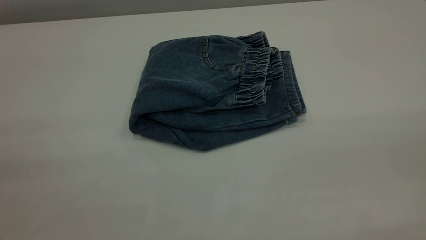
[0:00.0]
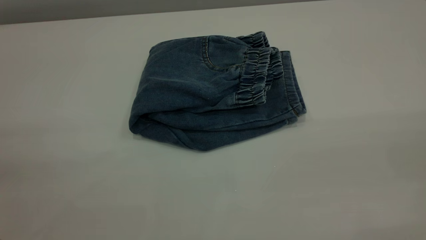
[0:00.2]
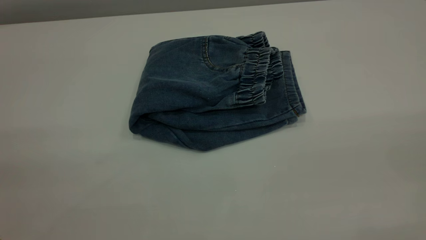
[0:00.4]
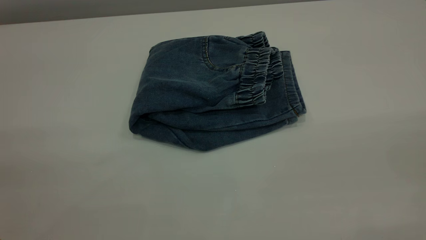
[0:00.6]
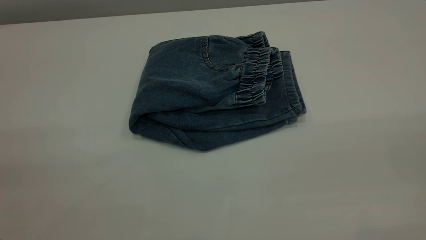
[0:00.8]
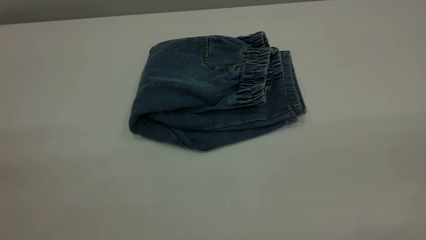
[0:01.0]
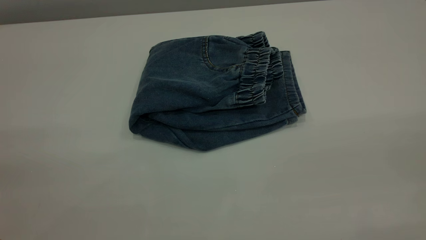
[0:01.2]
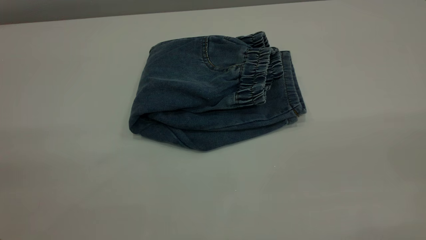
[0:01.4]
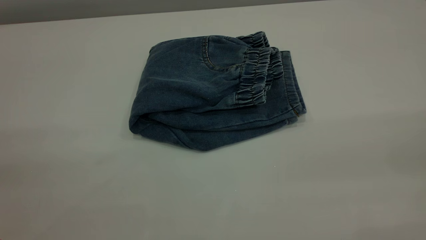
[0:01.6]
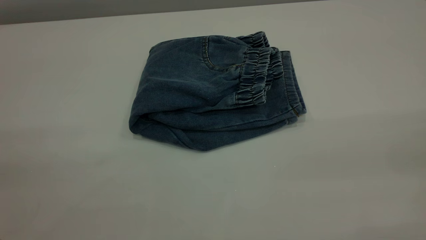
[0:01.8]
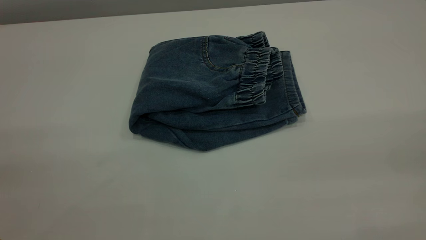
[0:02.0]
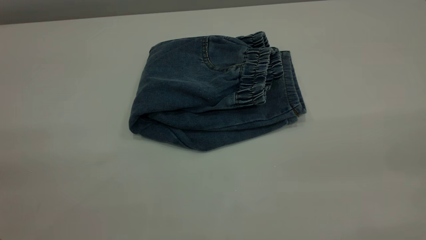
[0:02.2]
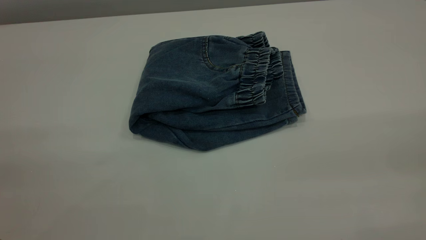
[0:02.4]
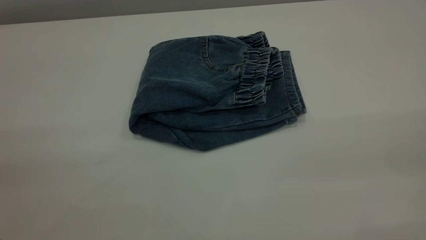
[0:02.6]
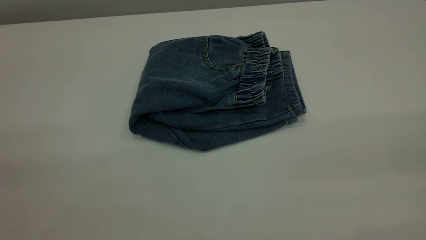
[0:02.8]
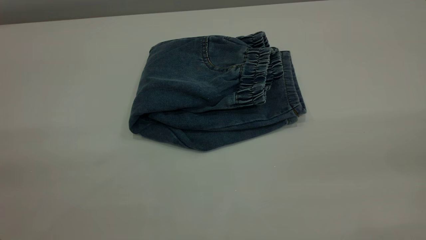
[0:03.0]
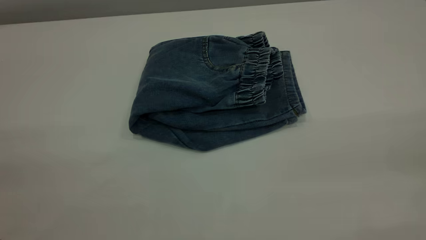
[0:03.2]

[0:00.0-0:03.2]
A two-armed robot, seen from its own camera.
0:01.6 to 0:03.2: Neither gripper changes place.

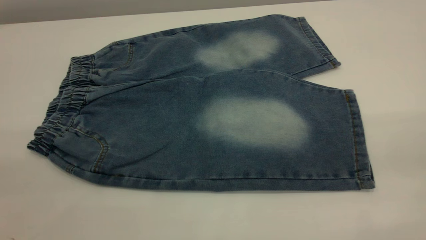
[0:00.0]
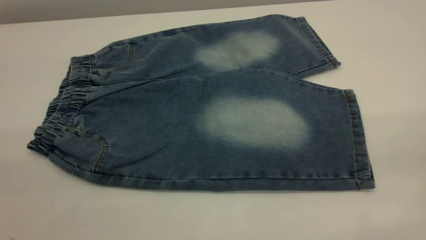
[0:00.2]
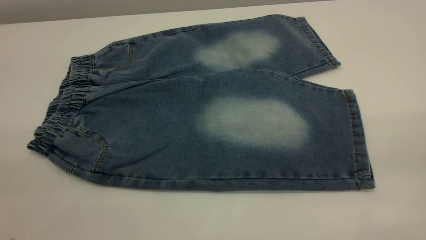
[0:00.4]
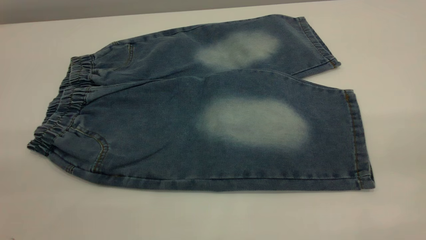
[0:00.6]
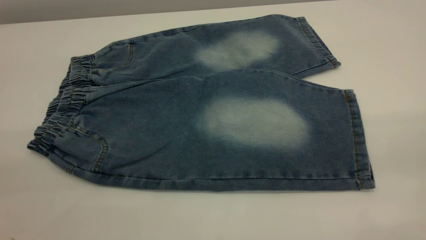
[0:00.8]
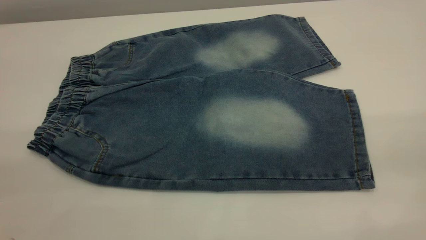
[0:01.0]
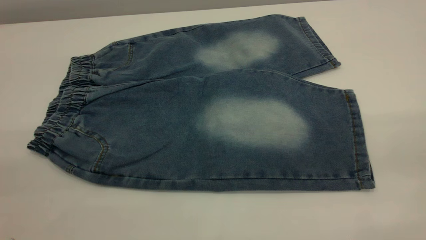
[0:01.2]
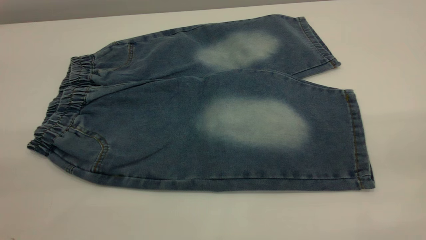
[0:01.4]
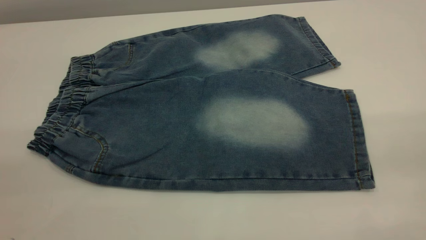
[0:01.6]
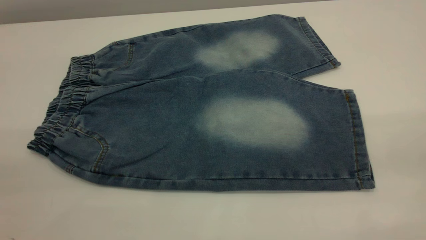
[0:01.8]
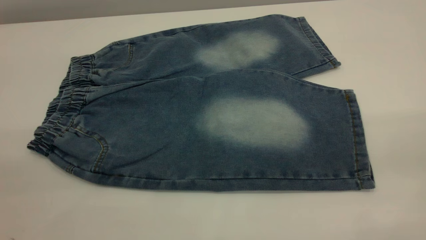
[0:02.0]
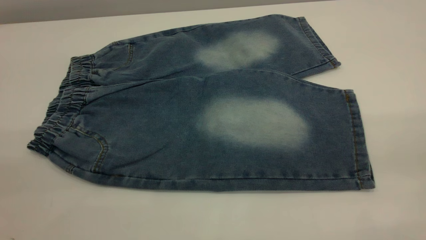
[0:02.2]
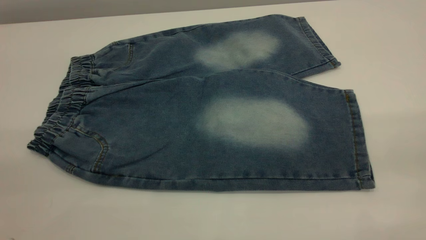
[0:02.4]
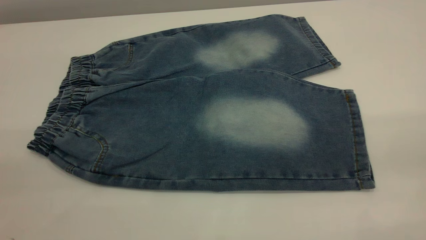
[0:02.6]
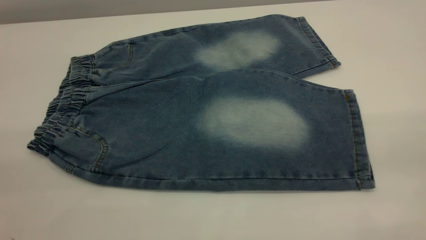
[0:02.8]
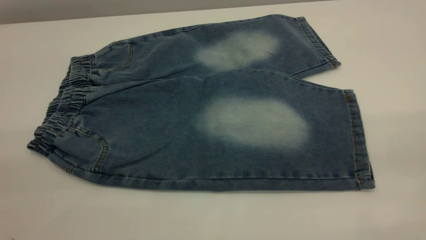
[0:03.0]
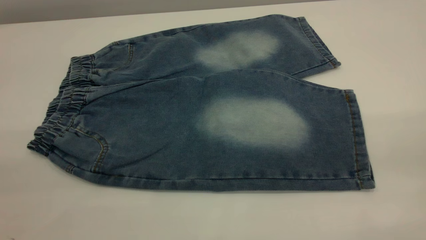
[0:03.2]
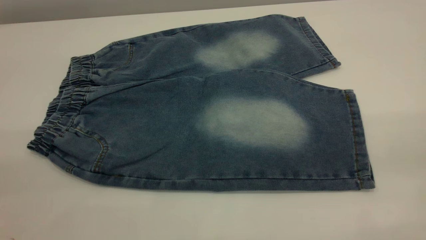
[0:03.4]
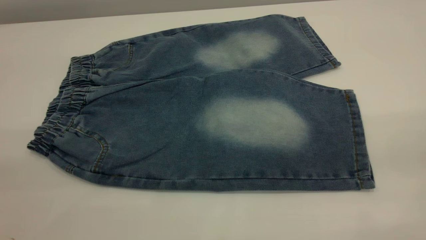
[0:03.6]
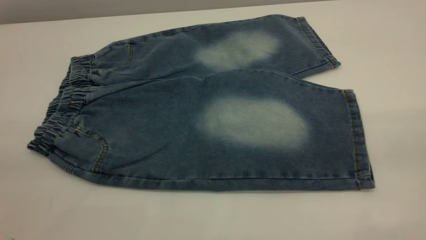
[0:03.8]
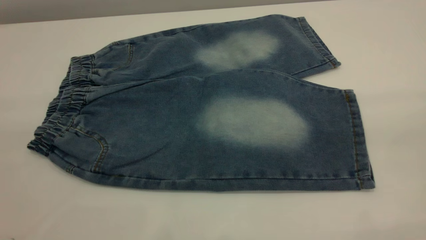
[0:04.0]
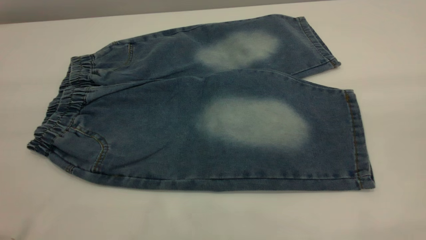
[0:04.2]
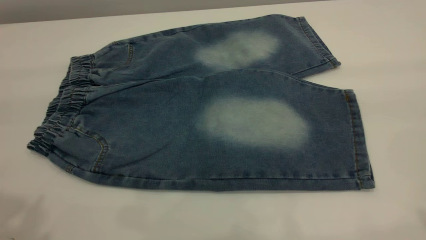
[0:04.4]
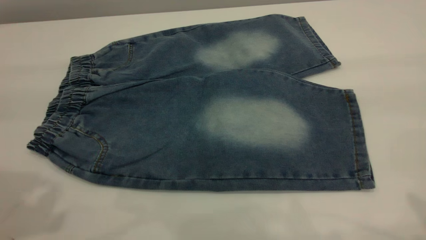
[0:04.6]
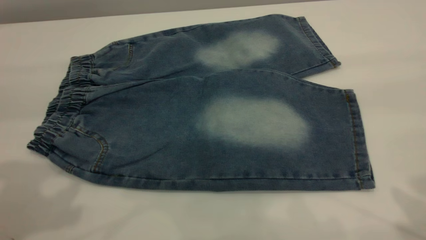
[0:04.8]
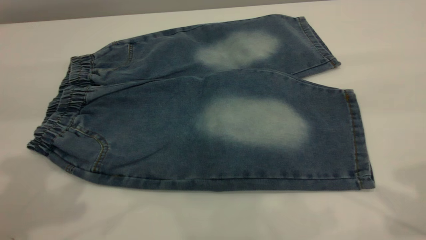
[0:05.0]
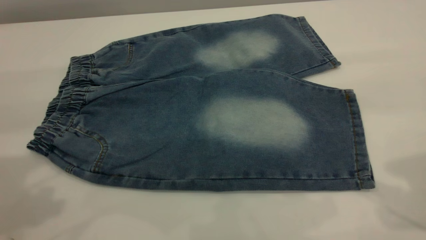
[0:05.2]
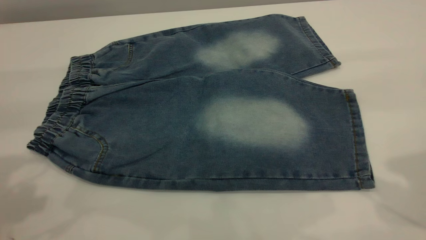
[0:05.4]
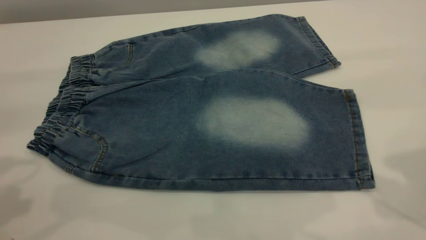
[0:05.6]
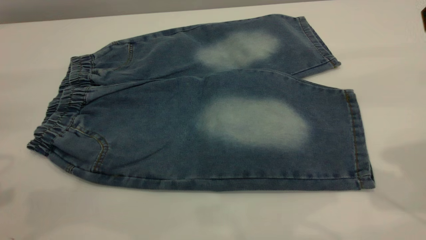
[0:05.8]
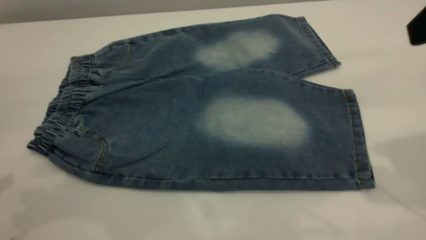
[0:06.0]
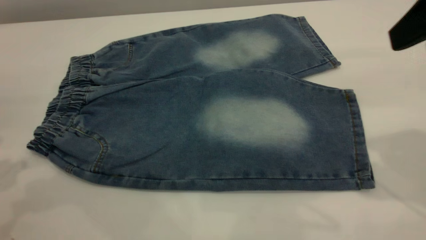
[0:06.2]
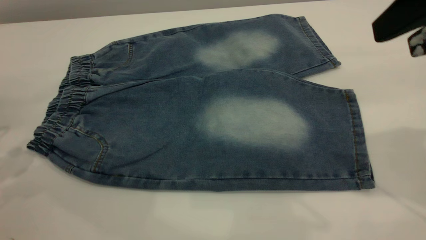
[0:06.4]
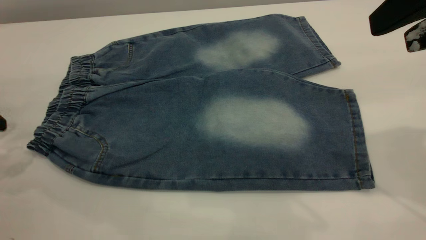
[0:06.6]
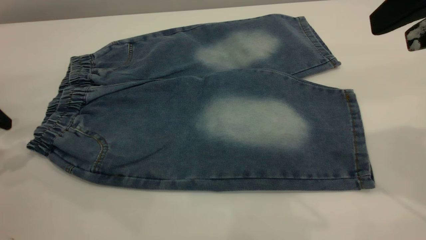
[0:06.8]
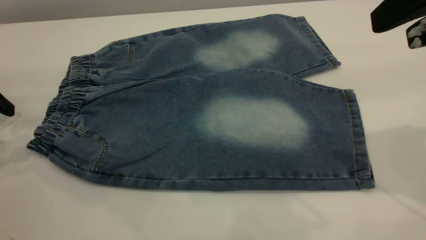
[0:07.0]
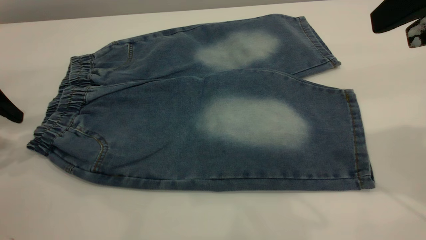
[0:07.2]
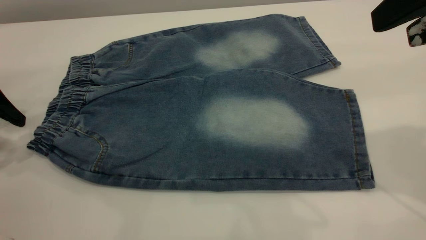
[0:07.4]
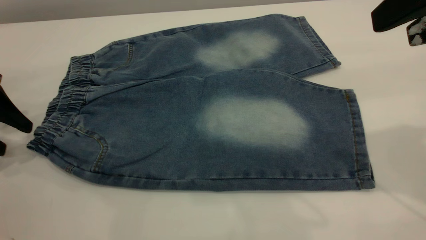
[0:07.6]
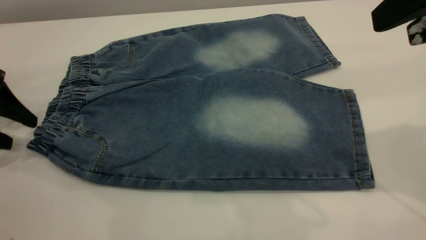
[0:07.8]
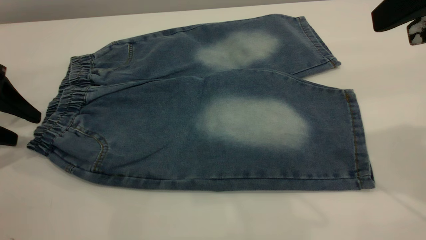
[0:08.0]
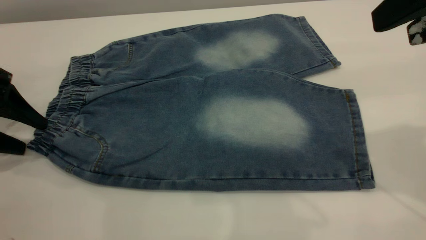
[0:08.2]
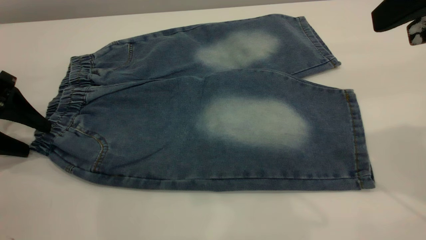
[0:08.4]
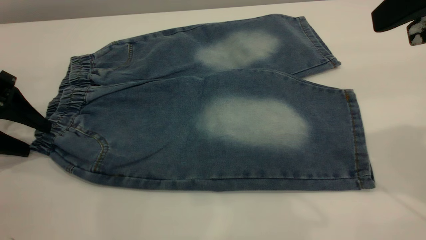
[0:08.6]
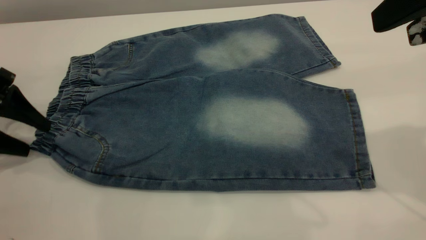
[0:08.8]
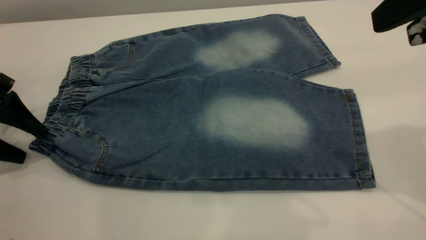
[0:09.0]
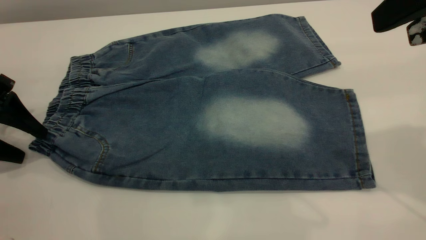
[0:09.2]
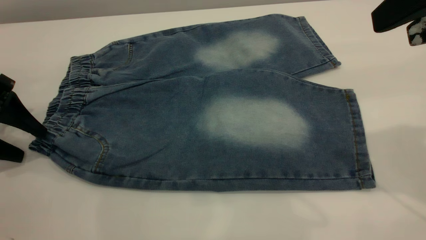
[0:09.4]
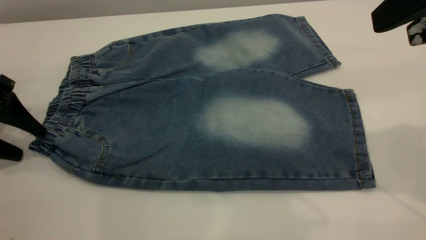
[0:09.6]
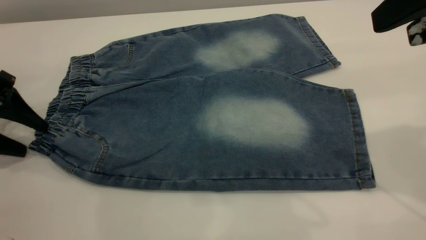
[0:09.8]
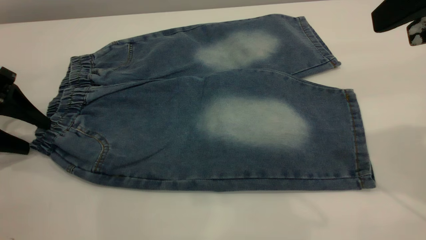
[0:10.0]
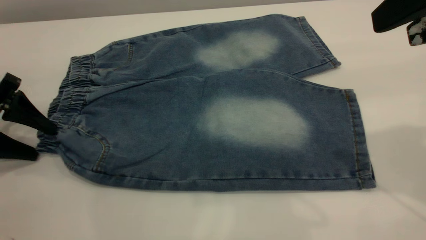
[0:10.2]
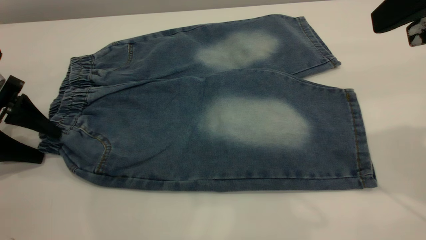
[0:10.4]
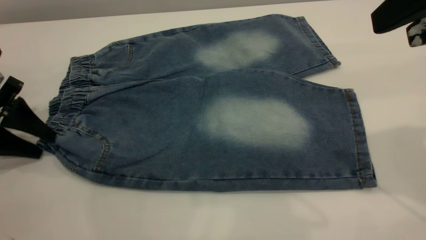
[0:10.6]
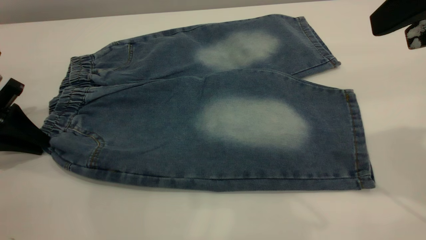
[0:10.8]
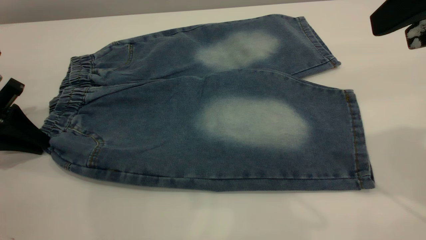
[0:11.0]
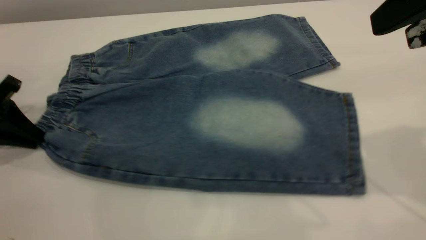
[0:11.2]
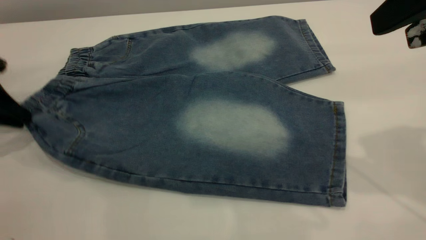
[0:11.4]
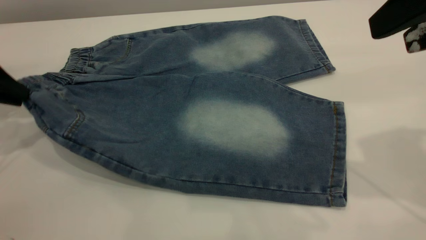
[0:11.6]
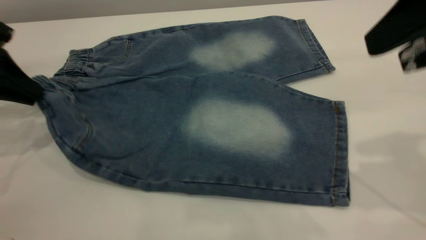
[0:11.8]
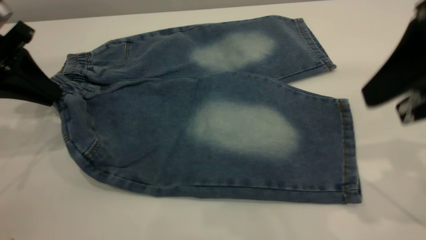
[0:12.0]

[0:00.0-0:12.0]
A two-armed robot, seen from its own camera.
0:00.0 to 0:03.0: Both grippers stay about where they are.
0:04.4 to 0:06.0: The right gripper is displaced forward and downward by approximately 15 cm.
0:06.0 to 0:07.6: The left gripper shifts roughly 15 cm downward and forward.
0:07.6 to 0:10.4: The grippers move only a little.
0:10.4 to 0:12.0: The left gripper travels upward by some 10 cm, and closes up.

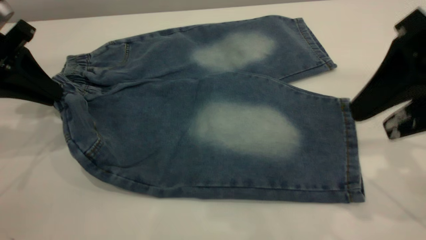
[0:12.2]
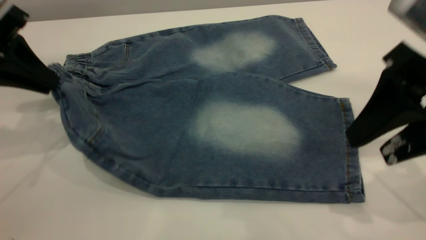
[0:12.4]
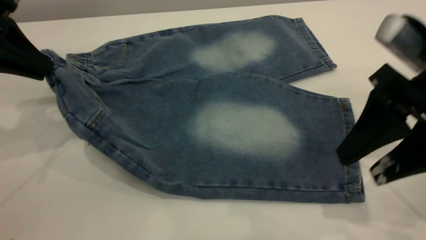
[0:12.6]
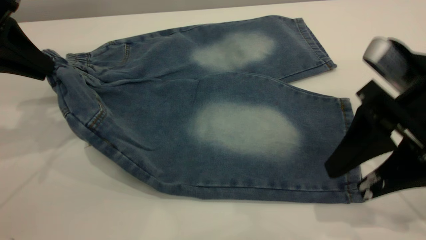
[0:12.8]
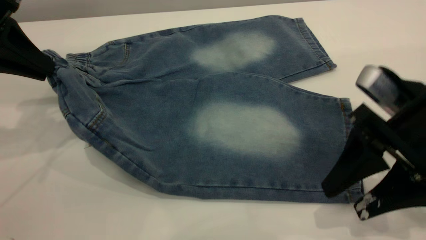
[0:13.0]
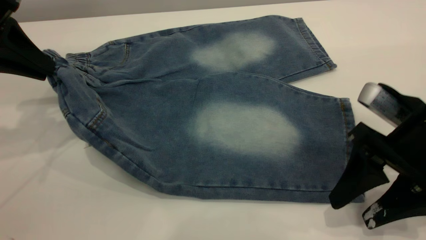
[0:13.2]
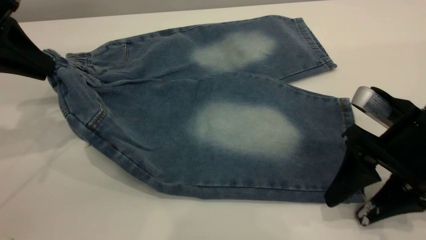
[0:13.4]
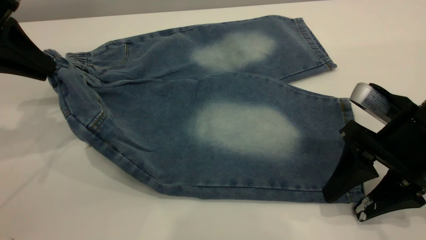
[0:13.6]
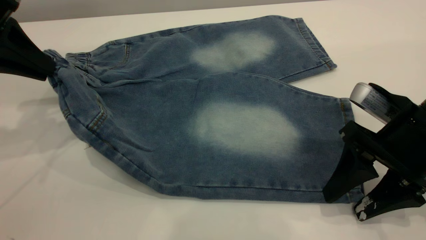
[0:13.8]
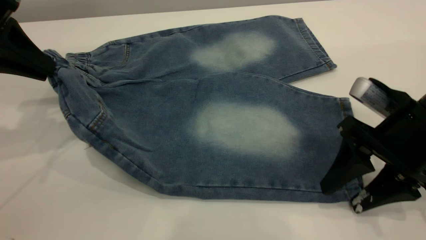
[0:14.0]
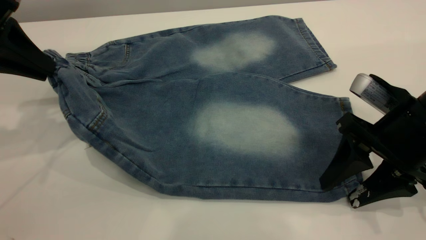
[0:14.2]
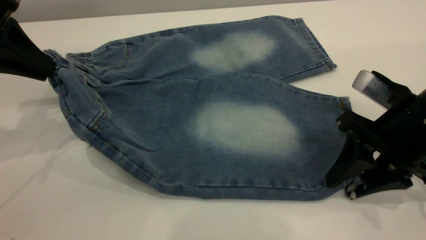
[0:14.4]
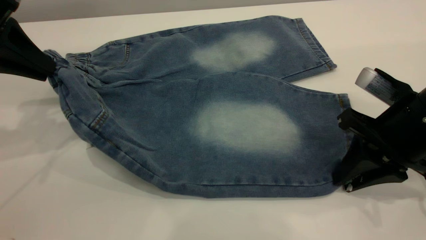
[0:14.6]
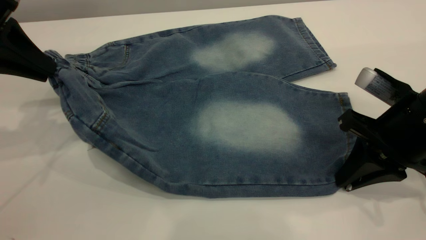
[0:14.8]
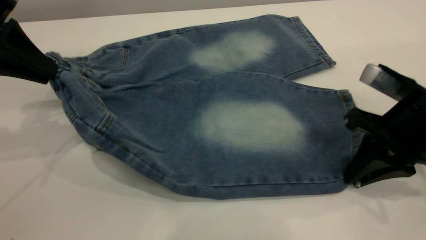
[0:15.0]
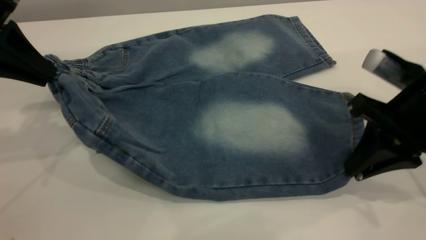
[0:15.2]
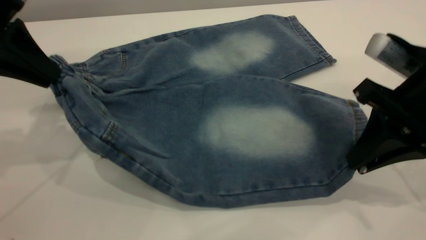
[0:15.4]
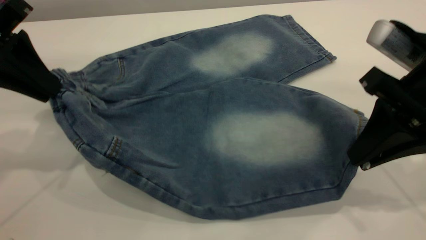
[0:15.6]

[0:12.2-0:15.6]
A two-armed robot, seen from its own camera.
0:12.2 to 0:13.8: The right gripper heads downward, covering roughly 15 cm.
0:13.8 to 0:15.6: The right gripper travels upward by approximately 5 cm, and closes up.
